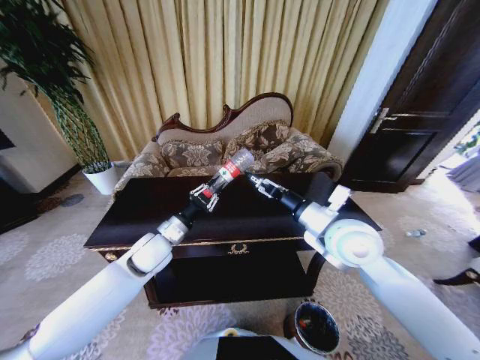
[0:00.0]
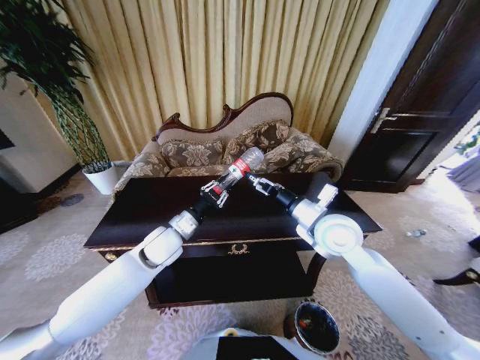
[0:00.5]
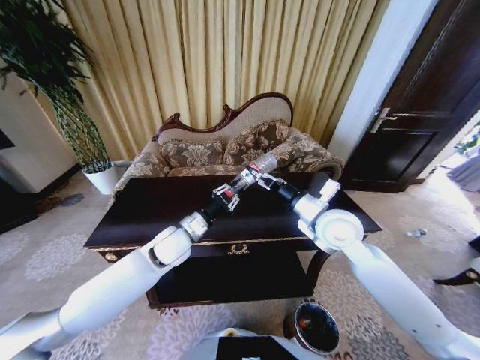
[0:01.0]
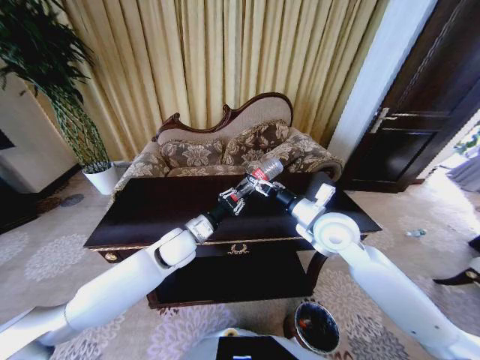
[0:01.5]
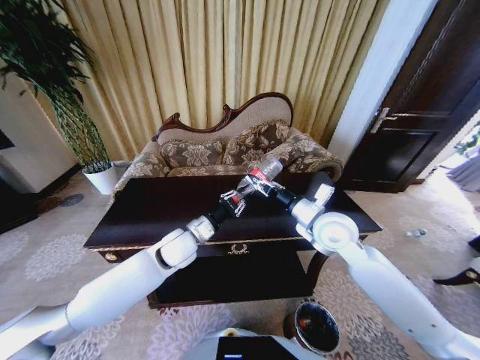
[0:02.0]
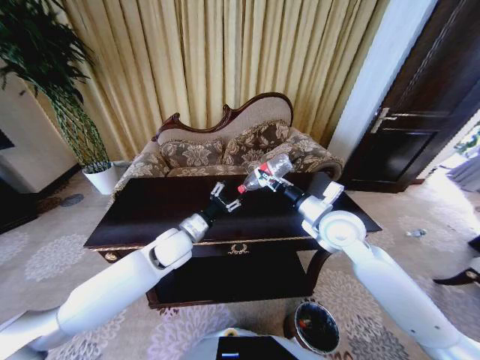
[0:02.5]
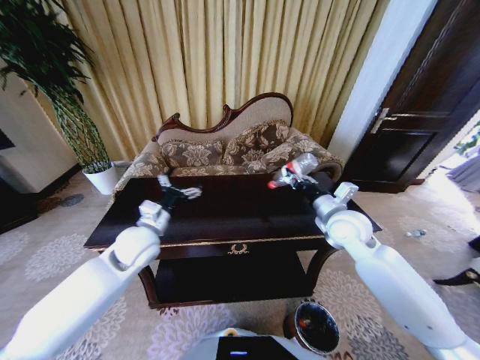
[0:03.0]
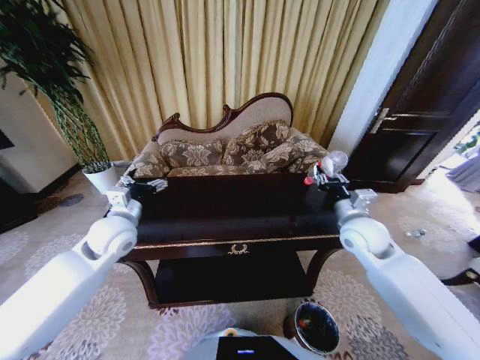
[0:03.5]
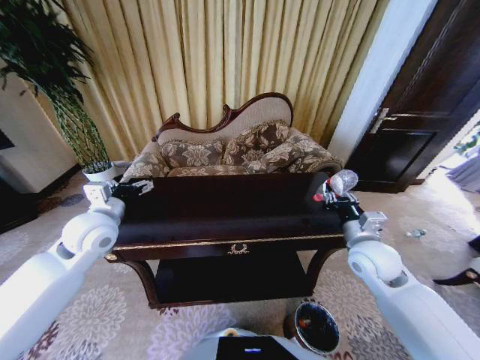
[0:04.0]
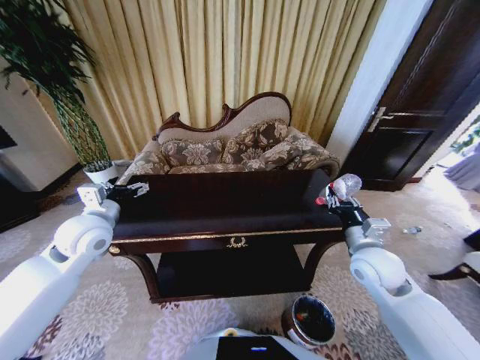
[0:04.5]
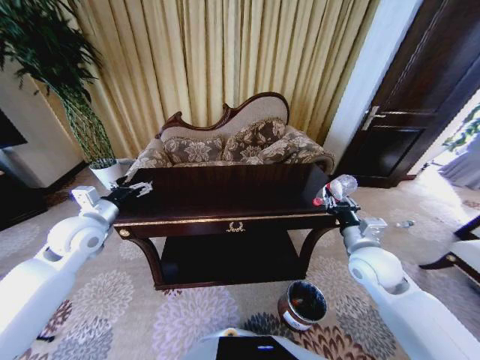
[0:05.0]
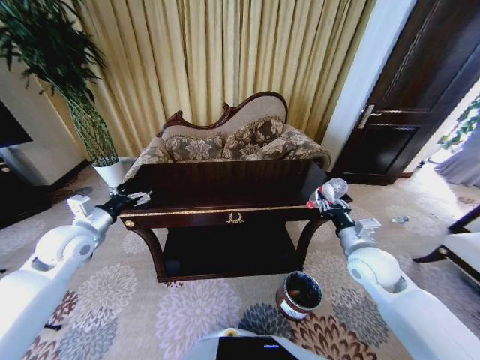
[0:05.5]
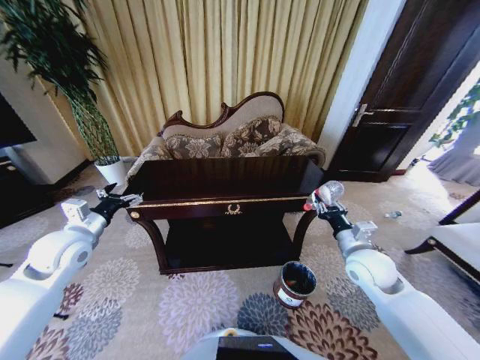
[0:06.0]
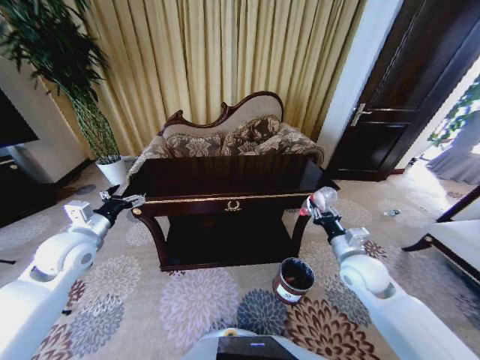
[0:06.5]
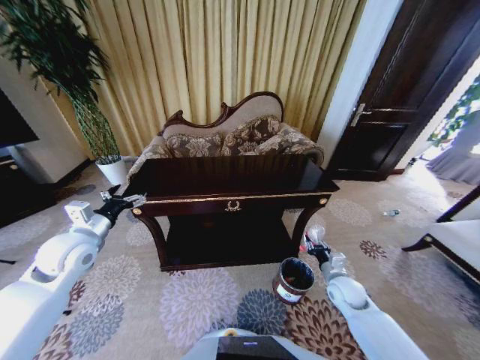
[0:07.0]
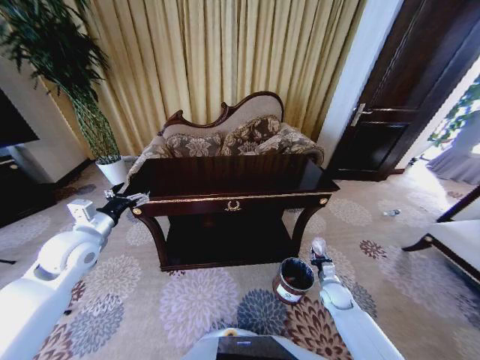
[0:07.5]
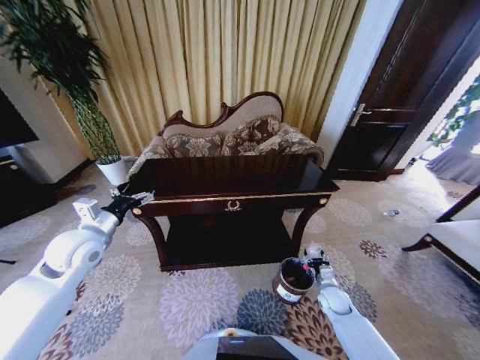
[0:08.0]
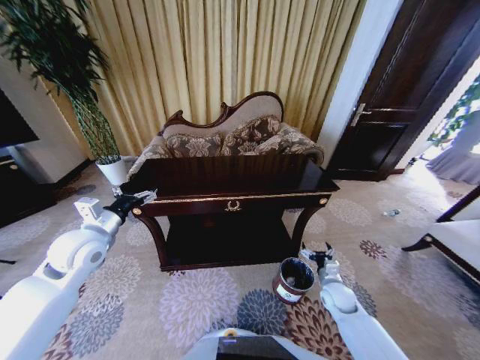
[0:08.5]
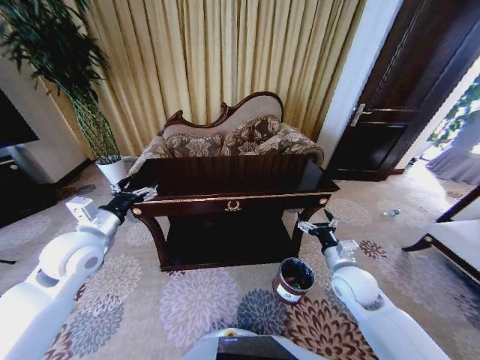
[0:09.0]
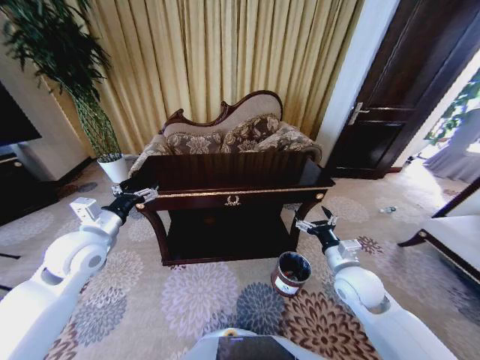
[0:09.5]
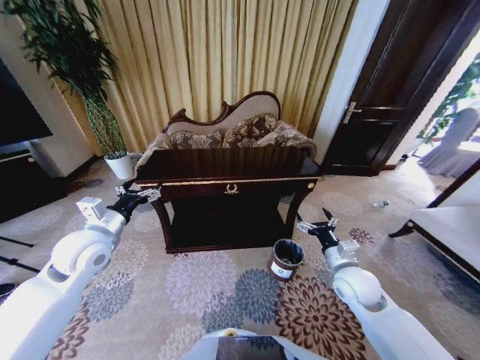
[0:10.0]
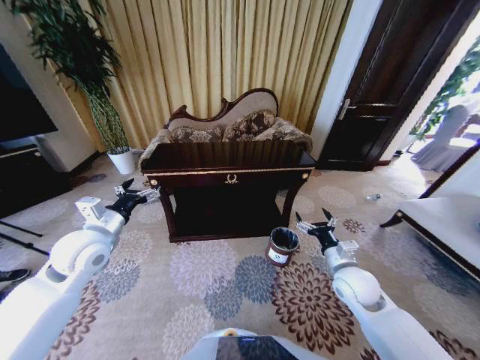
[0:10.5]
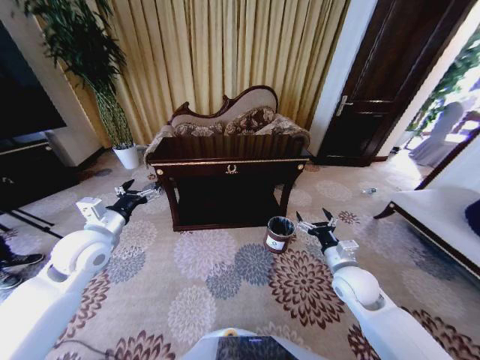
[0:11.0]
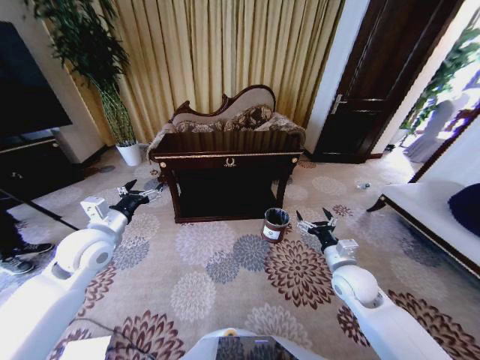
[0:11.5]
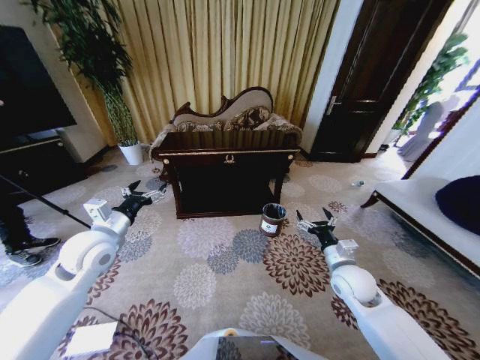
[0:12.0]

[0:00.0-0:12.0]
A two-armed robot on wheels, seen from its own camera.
Task of the whole recording: Move to the front of the table and place the trash on the table into the trash bin.
0:00.0 to 0:02.0: The left gripper heads to the right, covering about 5 cm; the right gripper moves approximately 5 cm, and closes its fingers.
0:02.0 to 0:04.0: The right gripper heads to the right and downward, covering about 10 cm, while the left gripper shifts some 20 cm to the left and upward, and opens.
0:04.0 to 0:06.0: The left gripper is displaced to the left by about 5 cm.
0:06.0 to 0:08.0: The right gripper heads downward, covering about 25 cm.
0:08.0 to 0:10.0: The right gripper shifts about 20 cm upward, and opens up.
